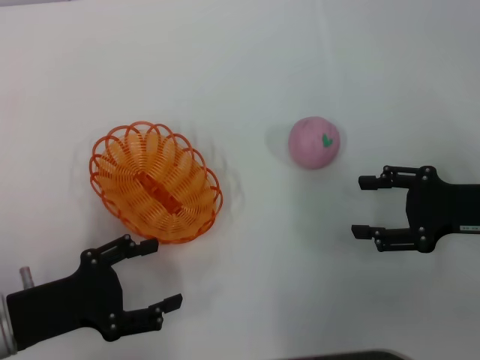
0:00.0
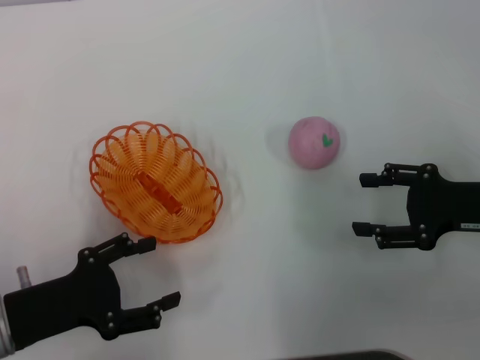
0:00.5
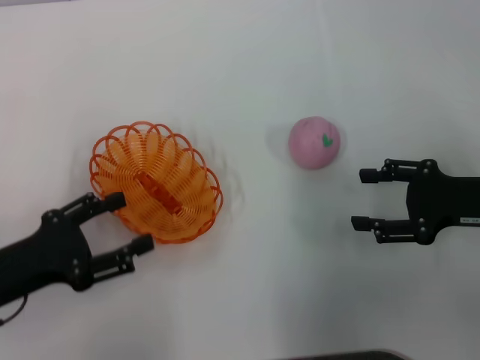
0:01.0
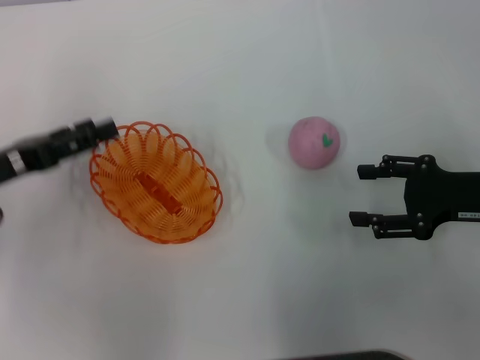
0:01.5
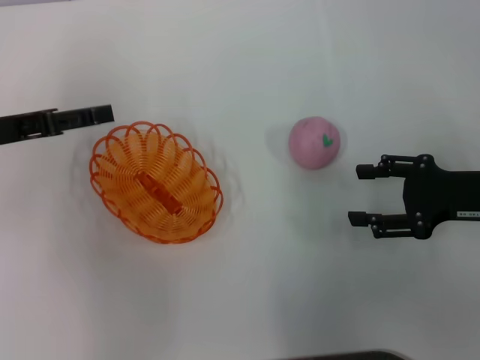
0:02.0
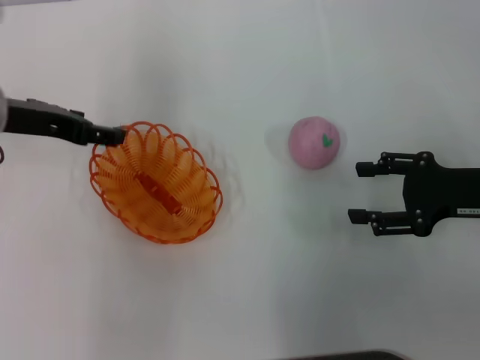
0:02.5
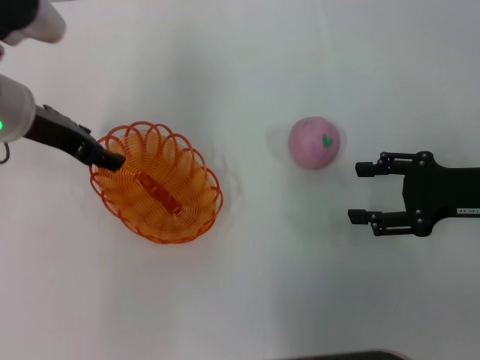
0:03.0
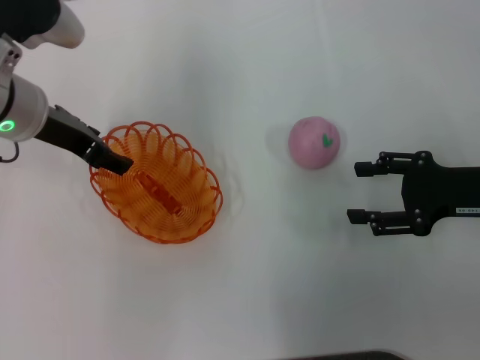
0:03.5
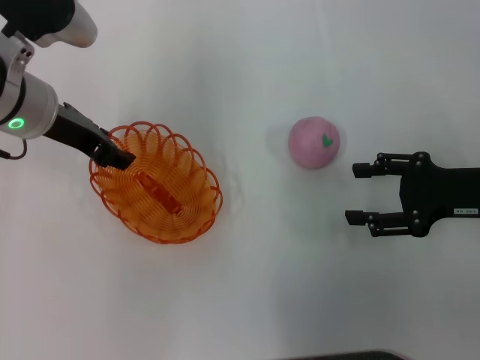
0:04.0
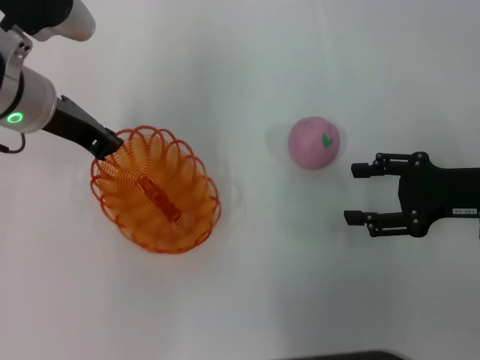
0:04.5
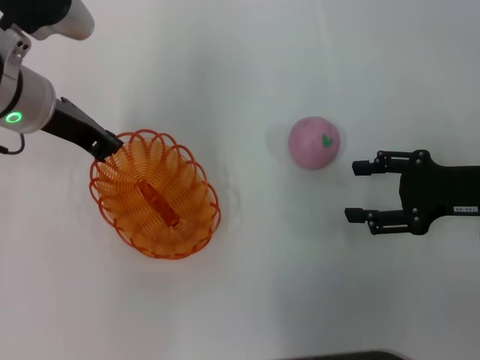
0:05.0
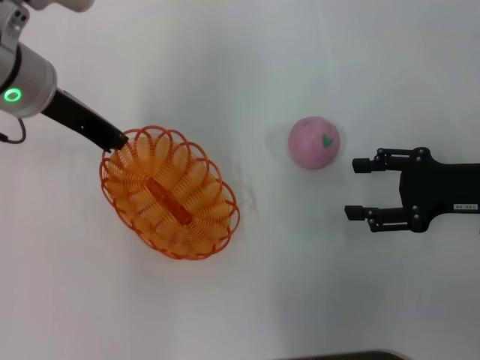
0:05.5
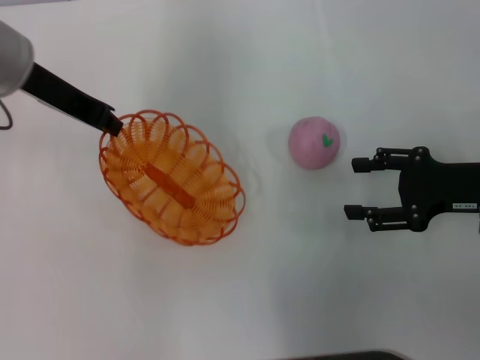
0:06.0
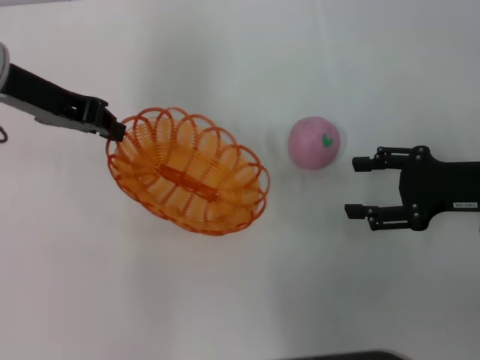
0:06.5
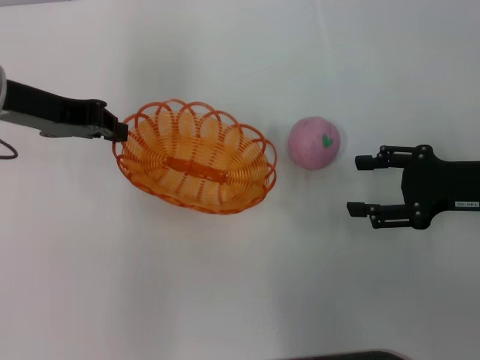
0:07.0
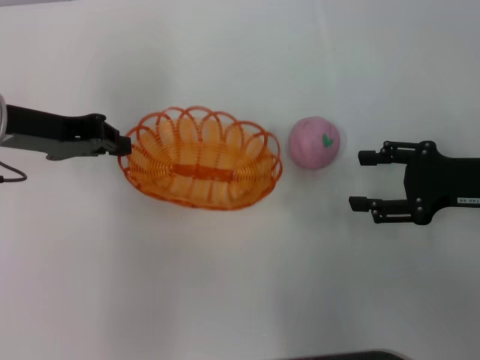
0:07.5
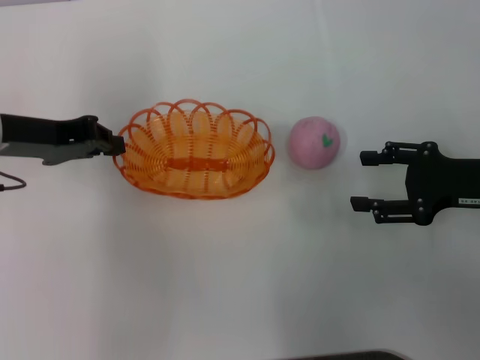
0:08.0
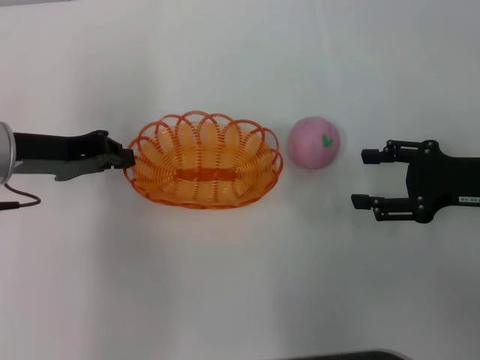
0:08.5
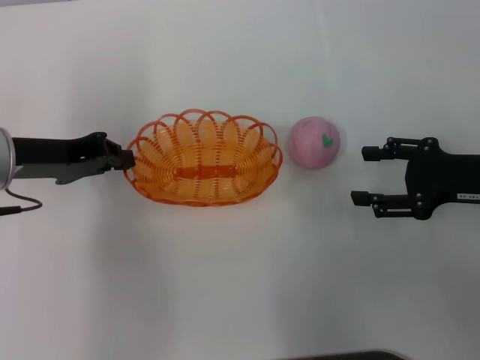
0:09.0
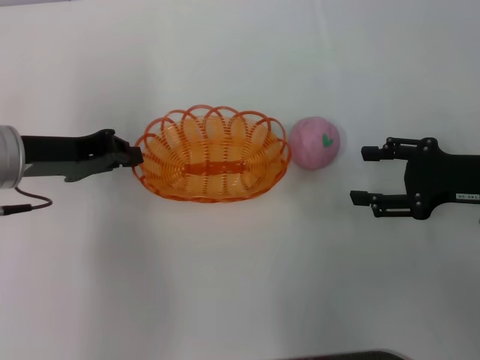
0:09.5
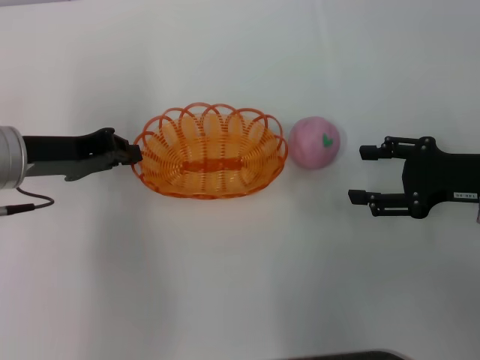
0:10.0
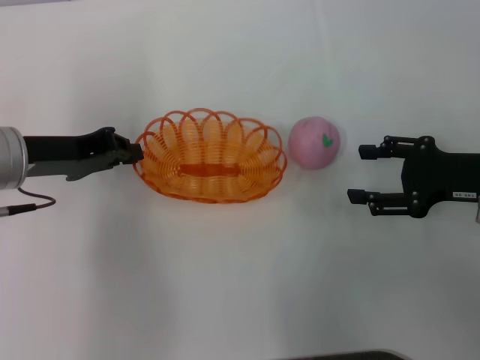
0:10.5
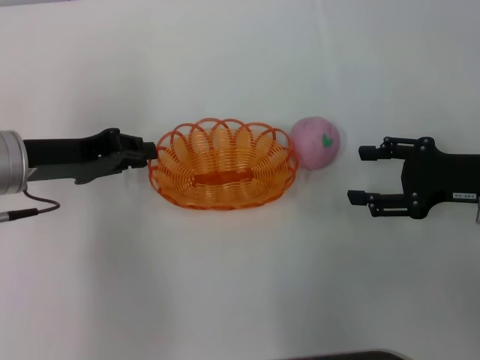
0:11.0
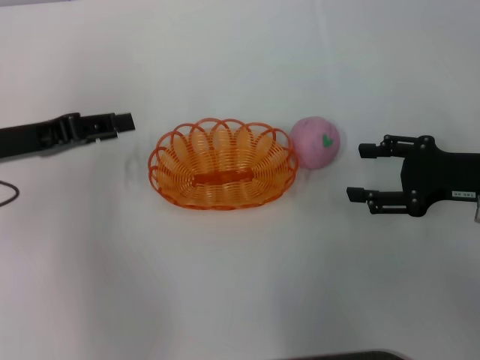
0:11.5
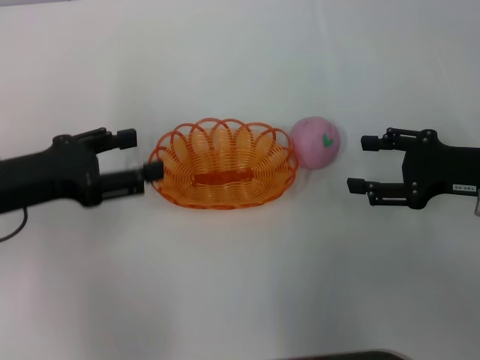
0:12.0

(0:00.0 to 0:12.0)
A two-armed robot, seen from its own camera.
Step, 0:00.0 - 0:06.5: Pick up the basket with the left gripper.
Step, 0:07.0 - 0:11.0: Place the basket in the center of view with the left gripper.
0:00.0 - 0:02.0: The left gripper travels forward and upward by some 15 cm.
0:02.0 - 0:04.0: The left gripper travels to the right by approximately 10 cm.
0:04.0 - 0:06.0: The left gripper goes approximately 5 cm upward, and closes its fingers.
0:06.0 - 0:08.0: The left gripper is displaced downward by approximately 5 cm.
0:08.0 - 0:10.0: There are only small adjustments of the grippers.
0:10.0 - 0:12.0: The left gripper ends up about 5 cm from where it was, and opens its fingers.

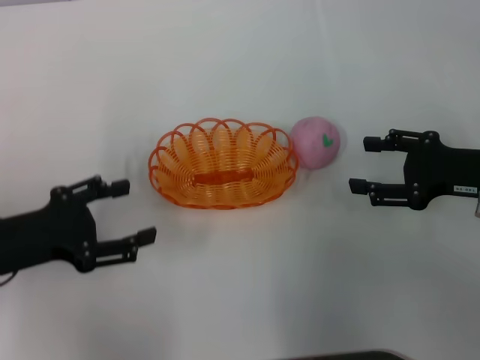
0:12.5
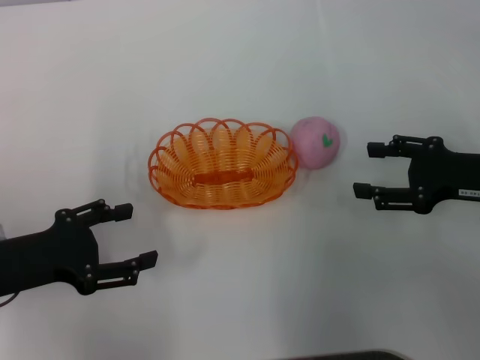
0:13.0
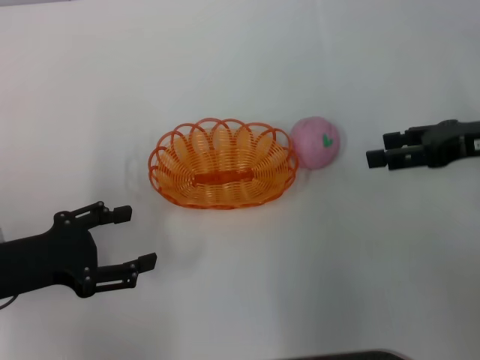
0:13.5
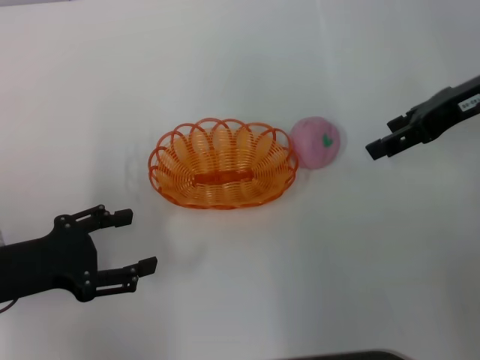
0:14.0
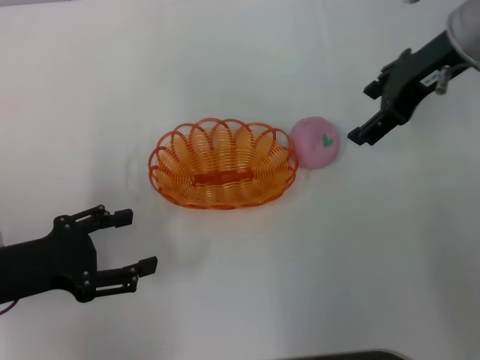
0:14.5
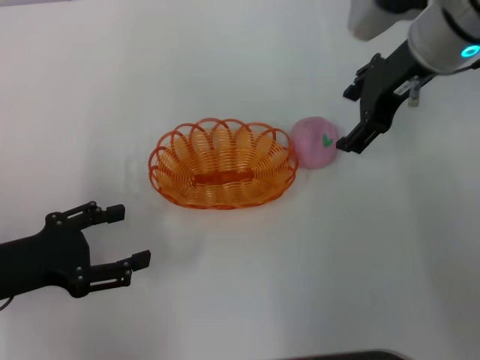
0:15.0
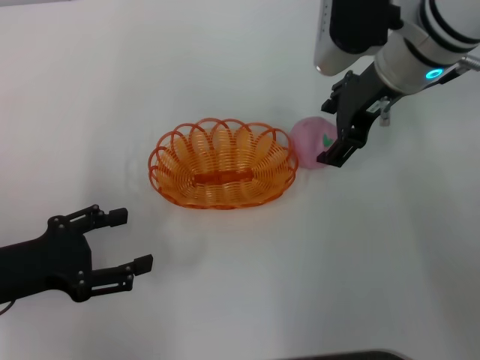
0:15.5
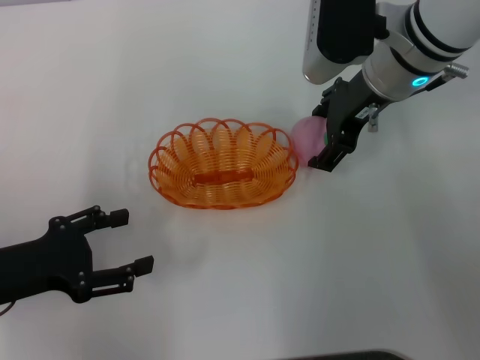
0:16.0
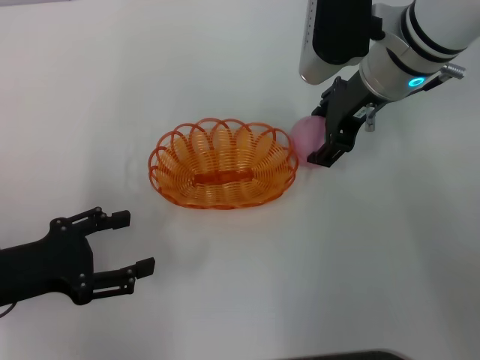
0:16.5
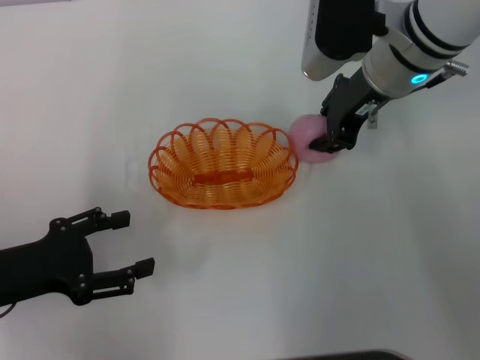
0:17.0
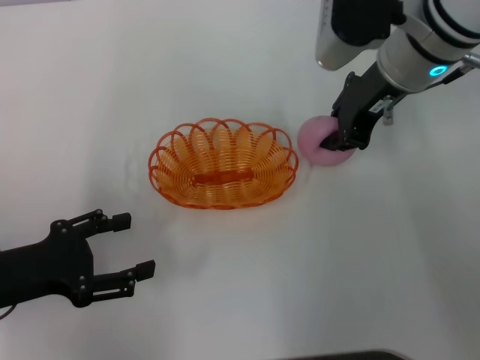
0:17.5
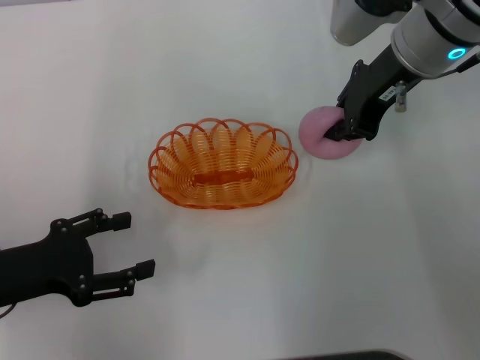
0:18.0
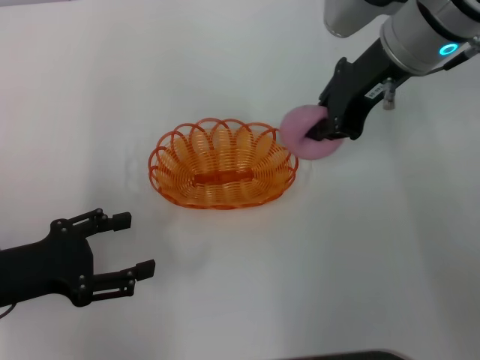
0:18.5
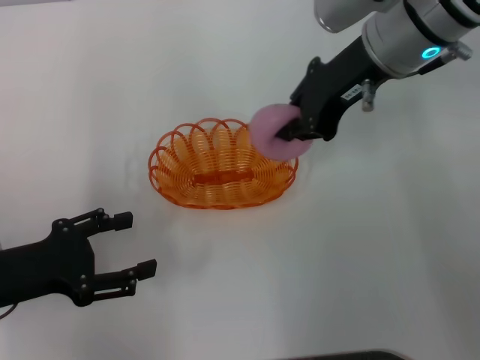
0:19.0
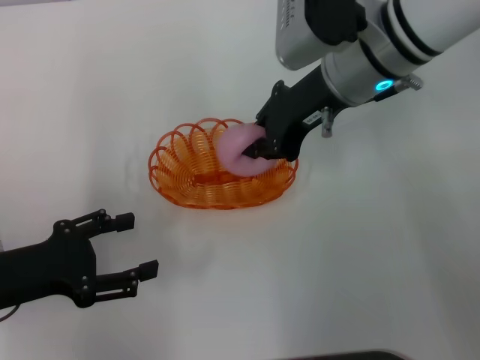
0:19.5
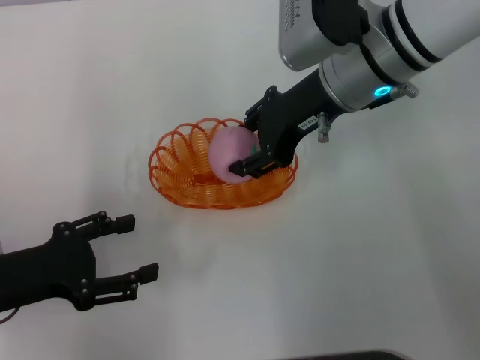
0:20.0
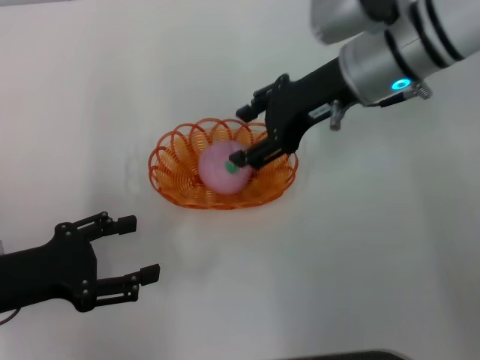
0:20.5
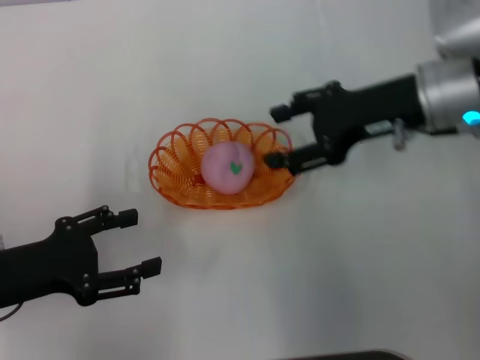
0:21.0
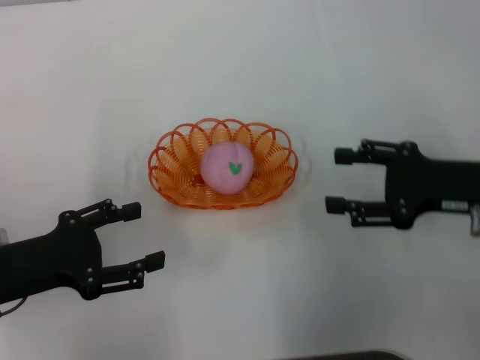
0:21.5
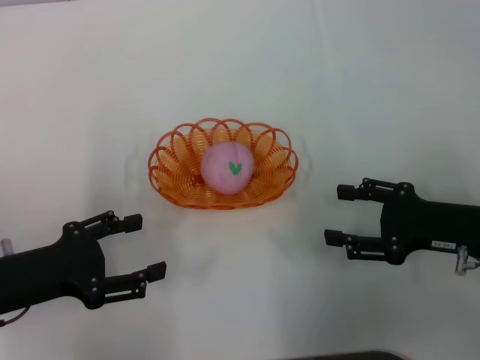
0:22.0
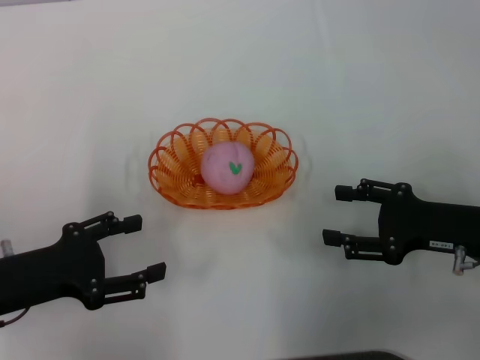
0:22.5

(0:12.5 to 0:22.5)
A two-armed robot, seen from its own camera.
Step, 0:12.5 - 0:18.0: Pick up the peach with the right gripper.
Step, 0:18.5 - 0:20.5: Place the peach into the basket with the right gripper.
0:12.5 - 0:14.5: The right gripper heads upward, forward and to the left, covering approximately 20 cm.
0:14.5 - 0:16.5: The right gripper goes some 5 cm to the left.
0:16.5 - 0:18.5: The right gripper moves upward, about 5 cm, and closes up.
0:18.5 - 0:20.5: The right gripper opens its fingers.
0:20.5 - 0:22.5: The right gripper heads backward, to the right and downward, covering roughly 25 cm.

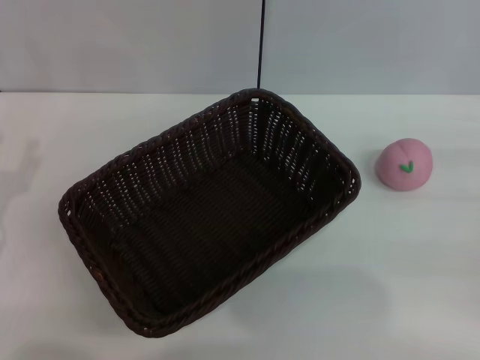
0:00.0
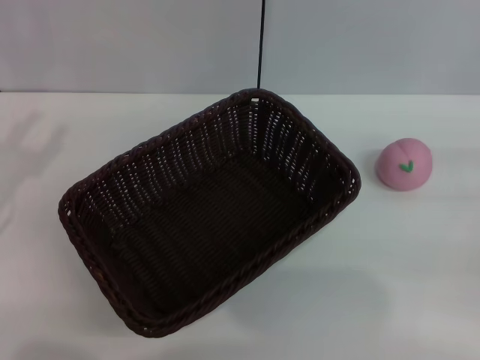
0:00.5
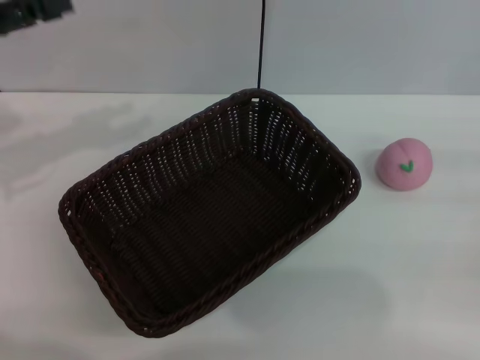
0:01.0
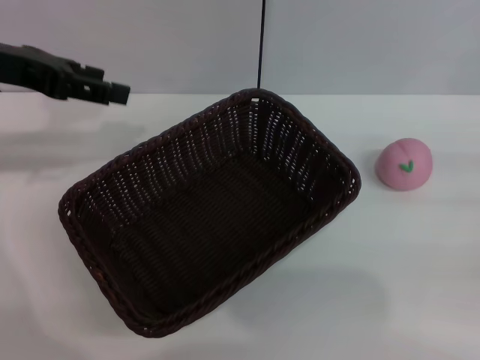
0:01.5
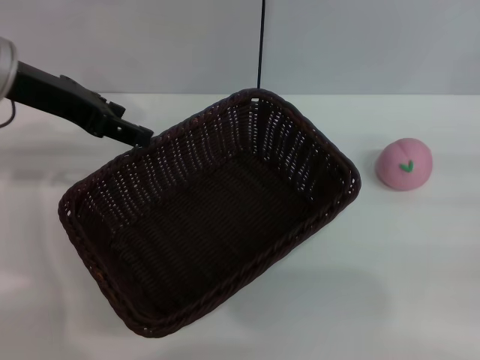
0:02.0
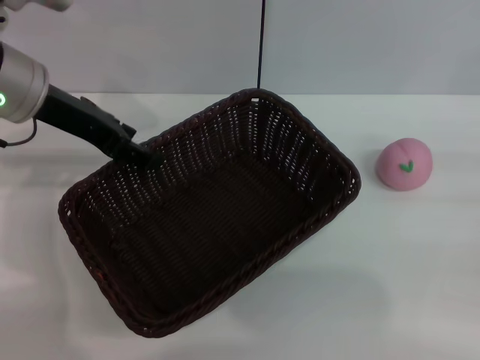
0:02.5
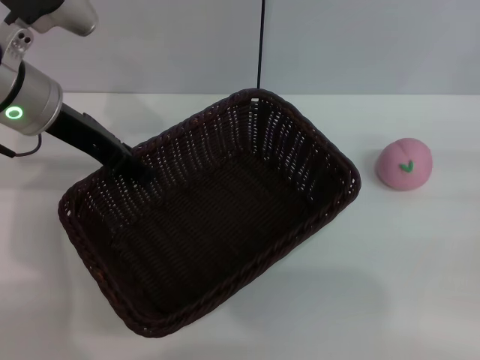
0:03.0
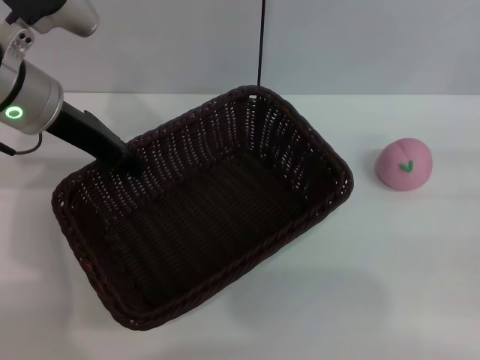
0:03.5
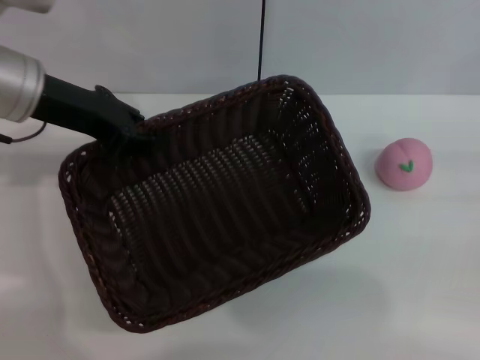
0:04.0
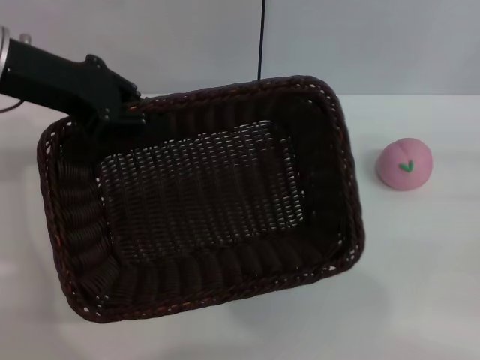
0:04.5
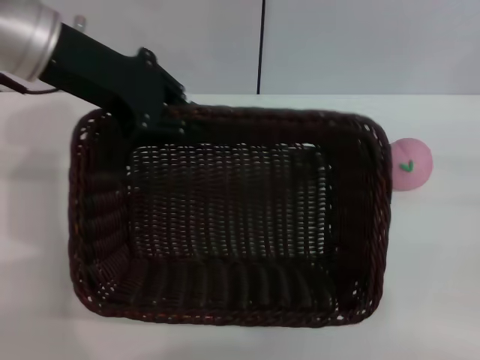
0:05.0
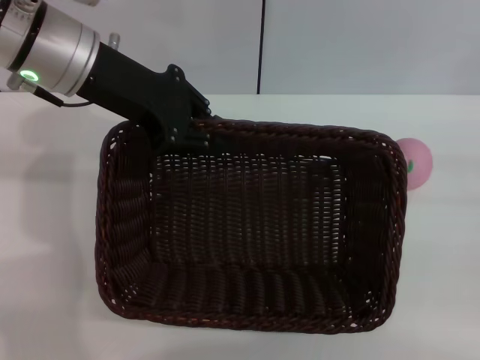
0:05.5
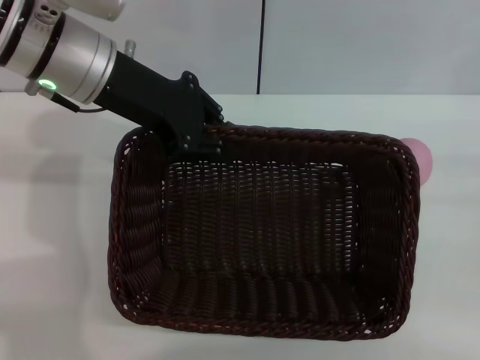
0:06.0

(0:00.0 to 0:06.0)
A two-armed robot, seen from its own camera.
Step, 0:00.0 - 0:04.0: Pick up the dark basket with the left gripper.
0:00.0 - 0:02.0: The left gripper shifts approximately 25 cm forward, upward and to the right.
0:02.0 - 0:04.0: The left gripper closes its fingers.
0:04.0 - 0:06.0: The left gripper goes about 5 cm to the right.
